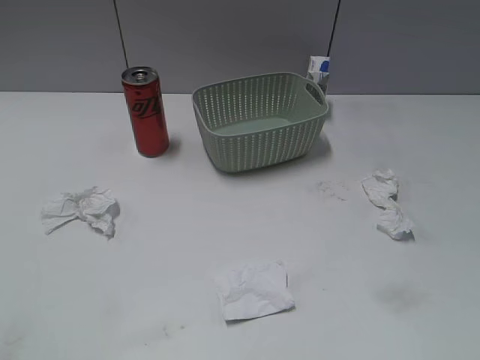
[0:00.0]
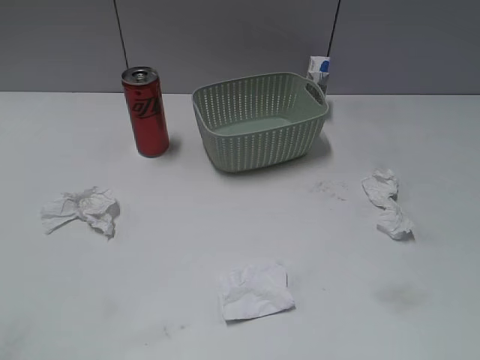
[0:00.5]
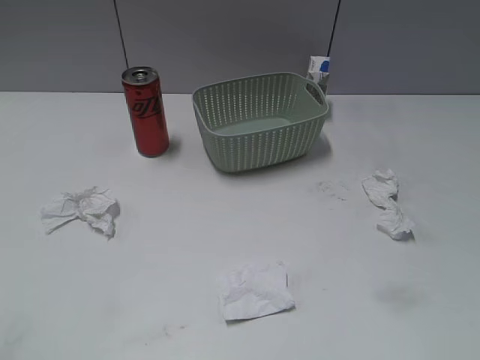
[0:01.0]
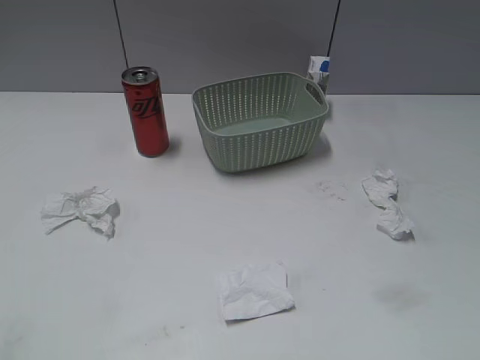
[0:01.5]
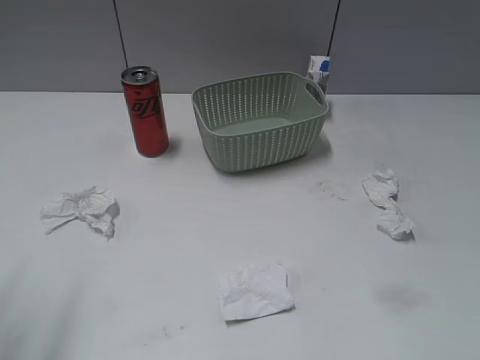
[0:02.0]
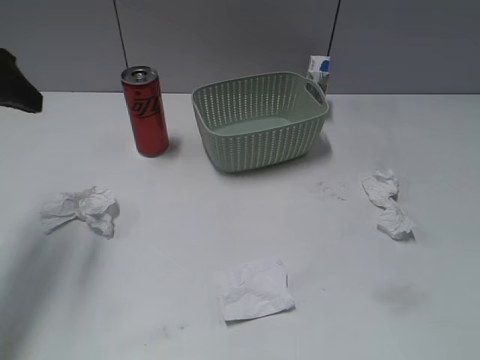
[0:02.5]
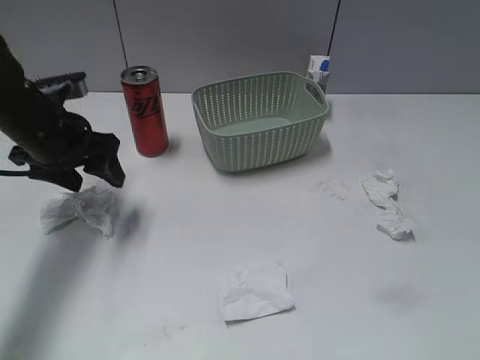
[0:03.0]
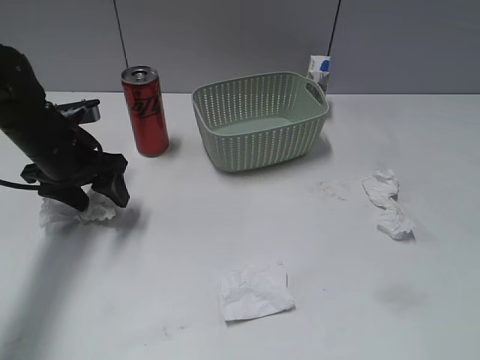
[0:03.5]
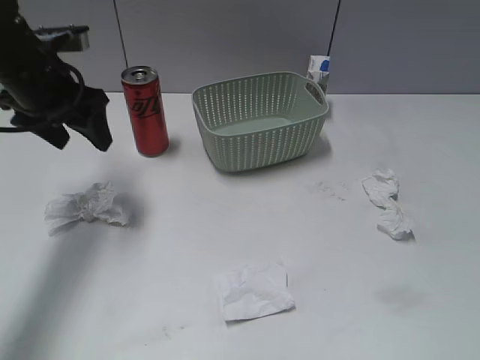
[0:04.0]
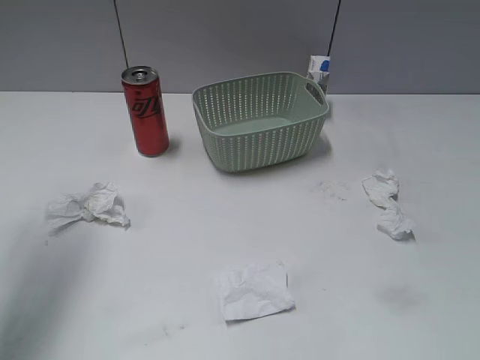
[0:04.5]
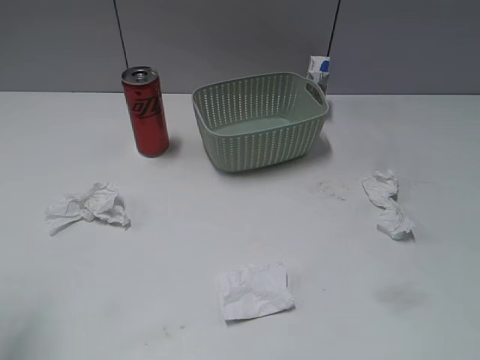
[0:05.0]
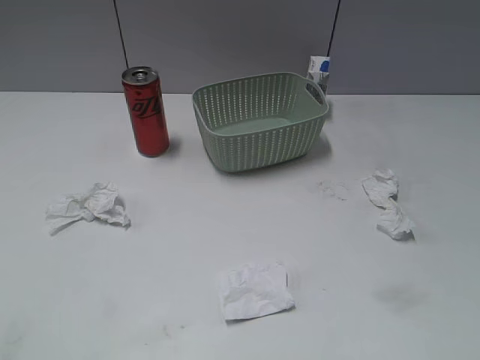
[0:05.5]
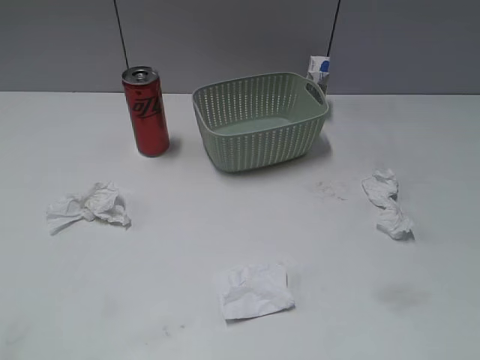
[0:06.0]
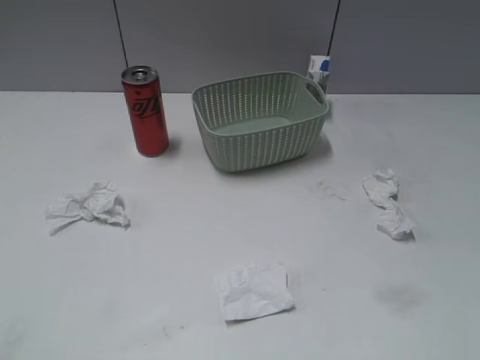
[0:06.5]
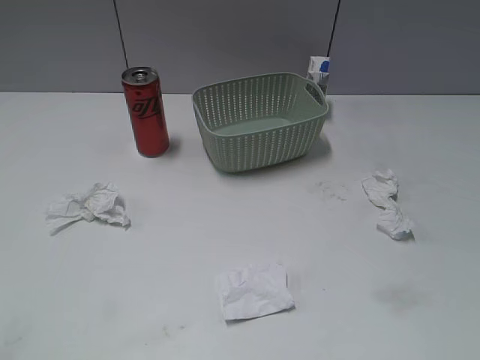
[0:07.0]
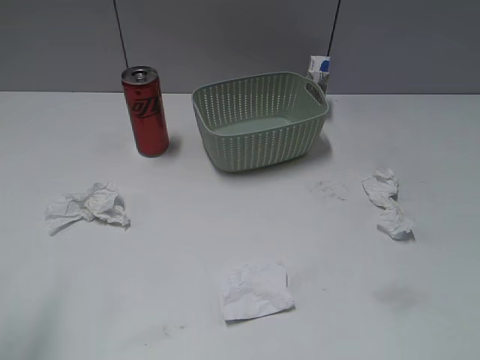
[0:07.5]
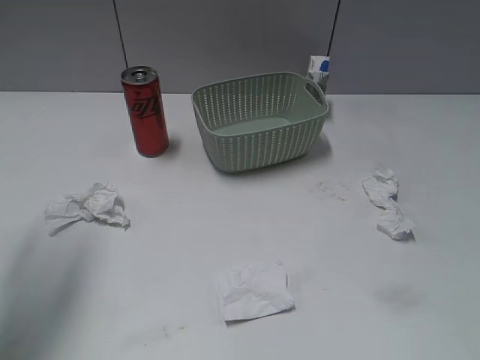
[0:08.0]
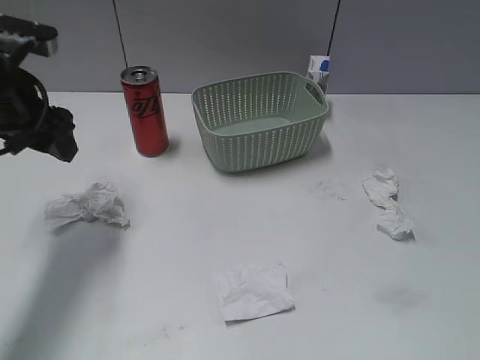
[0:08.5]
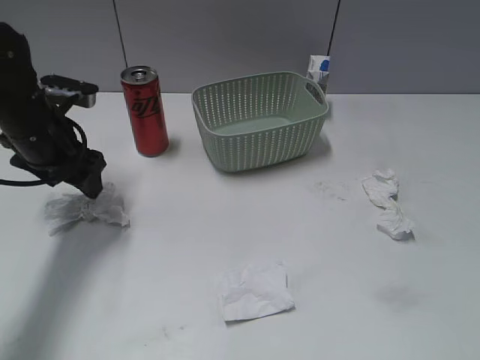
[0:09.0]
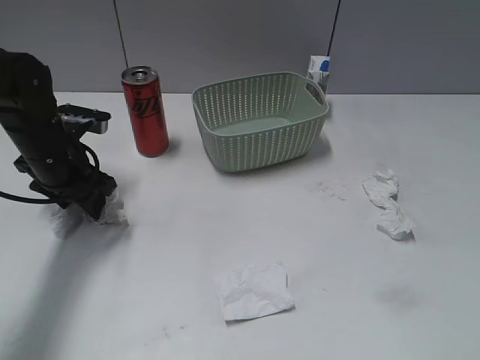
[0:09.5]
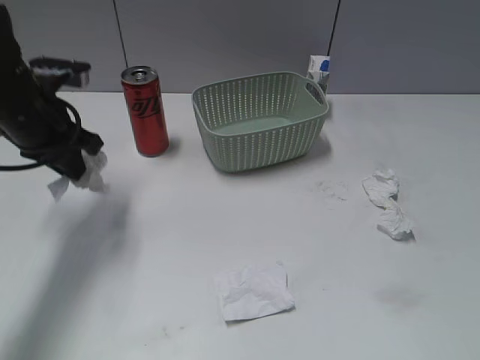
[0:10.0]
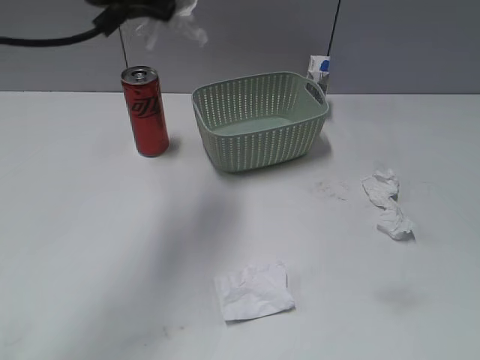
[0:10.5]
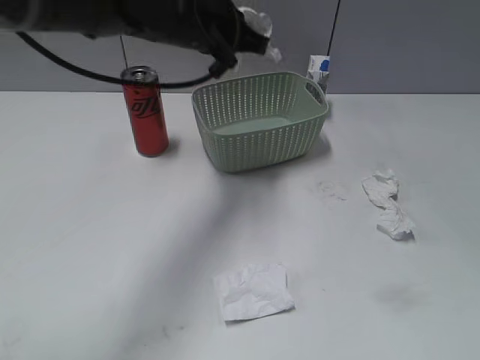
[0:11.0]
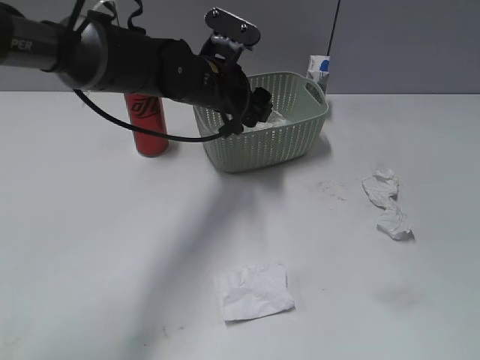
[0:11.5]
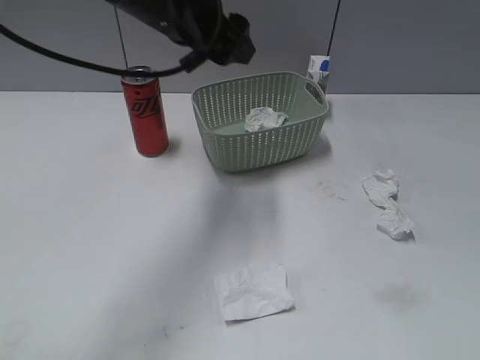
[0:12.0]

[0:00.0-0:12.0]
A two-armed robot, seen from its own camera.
Step, 0:02.5 to 0:09.5: Grasp the waste paper with left gripper.
Step, 0:10.0 to 0:11.5: Place the waste paper in the basket with left gripper.
0:02.0 to 0:04.0: The left gripper is displaced forward and downward by some 25 cm.
0:04.0 to 0:06.0: The left gripper moves backward, about 35 cm.
0:06.0 to 0:08.0: The left gripper is displaced forward by some 25 cm.
0:08.0 to 0:10.0: The left gripper moves downward, forward and to the right, about 15 cm, and closes.
0:10.0 to 0:12.0: The left gripper shifts approximately 20 cm to the right and upward, and opens up.

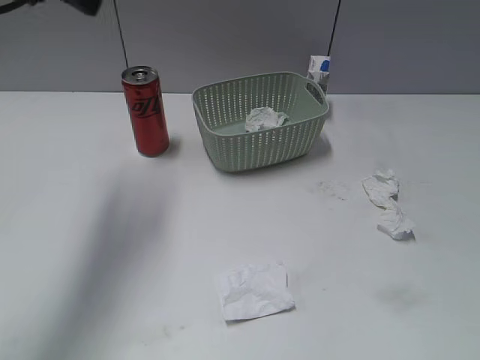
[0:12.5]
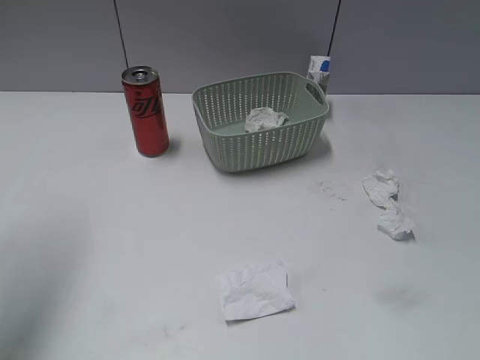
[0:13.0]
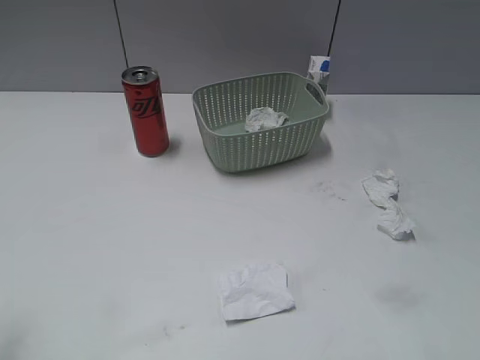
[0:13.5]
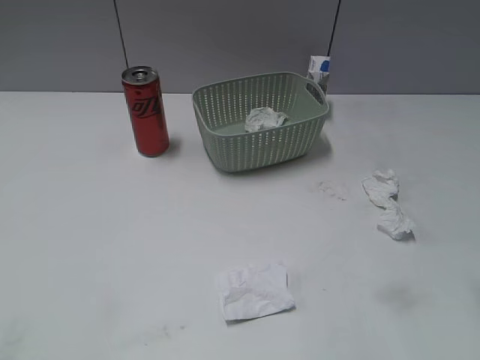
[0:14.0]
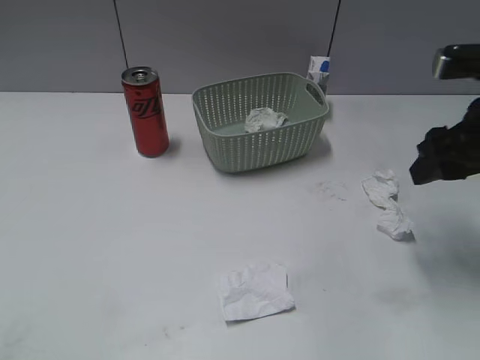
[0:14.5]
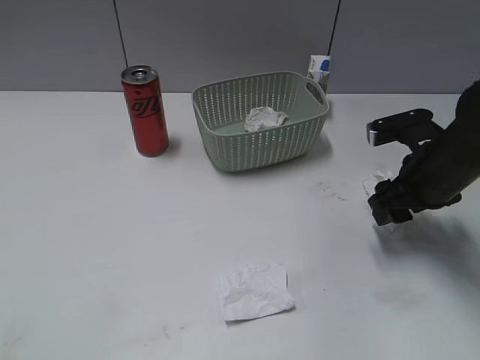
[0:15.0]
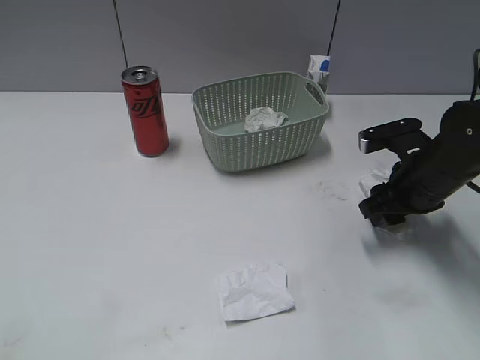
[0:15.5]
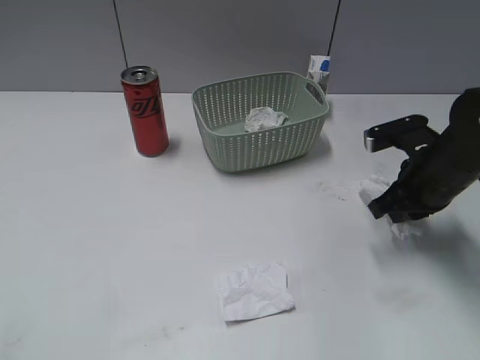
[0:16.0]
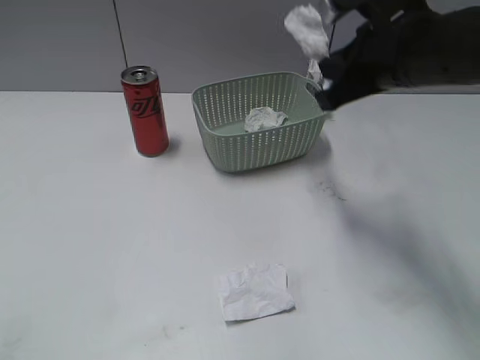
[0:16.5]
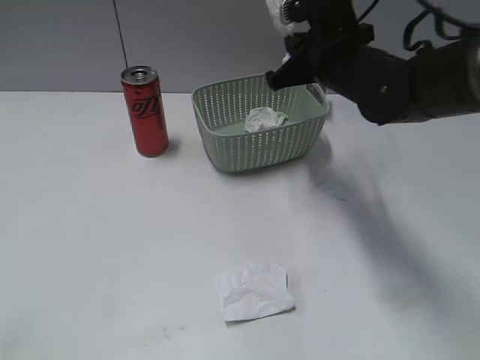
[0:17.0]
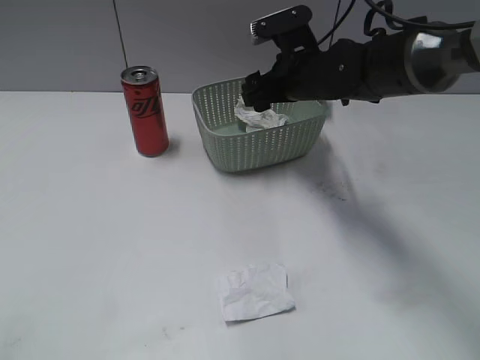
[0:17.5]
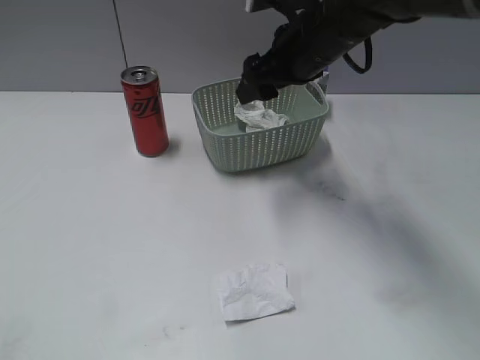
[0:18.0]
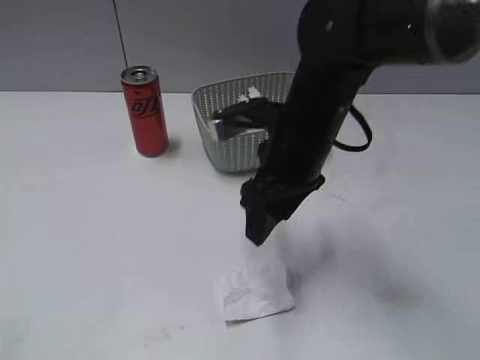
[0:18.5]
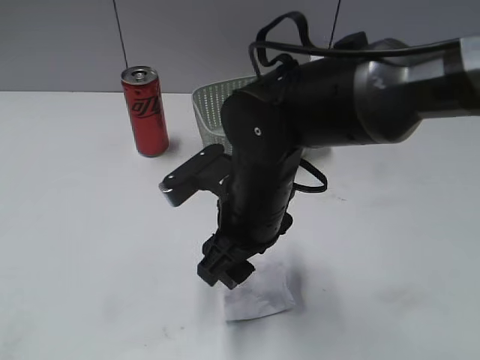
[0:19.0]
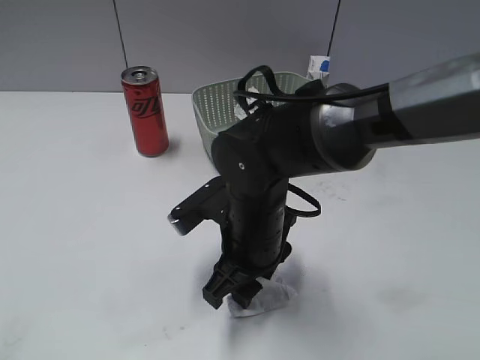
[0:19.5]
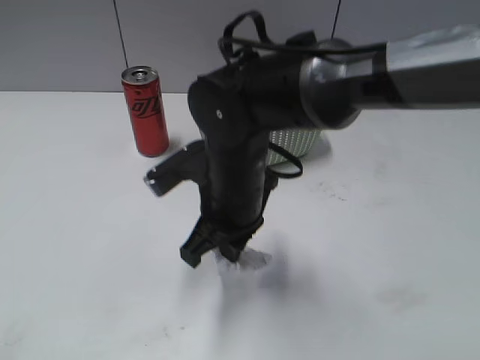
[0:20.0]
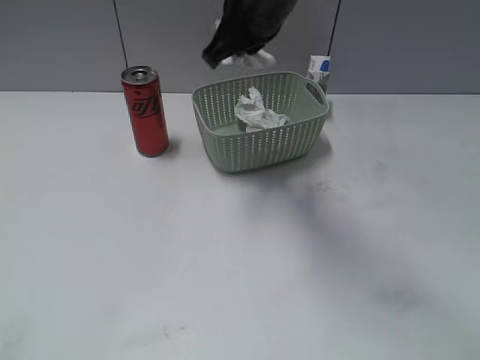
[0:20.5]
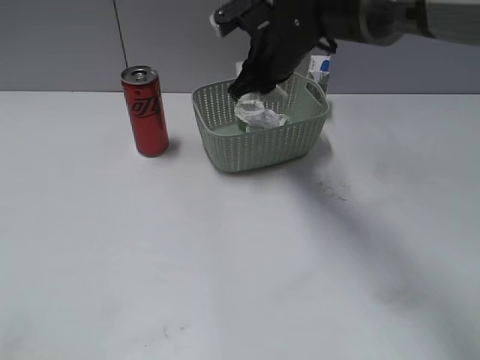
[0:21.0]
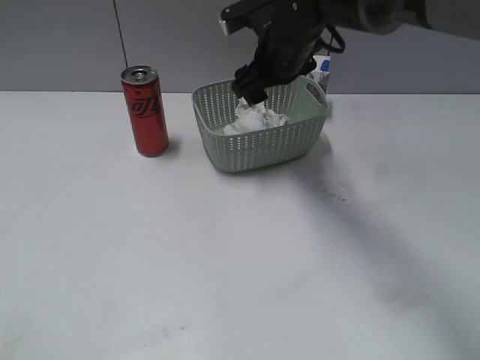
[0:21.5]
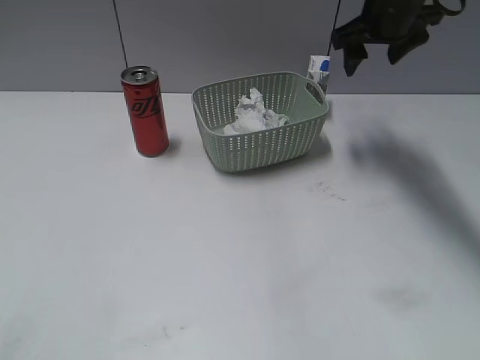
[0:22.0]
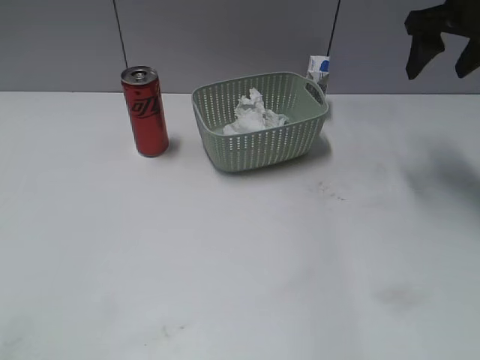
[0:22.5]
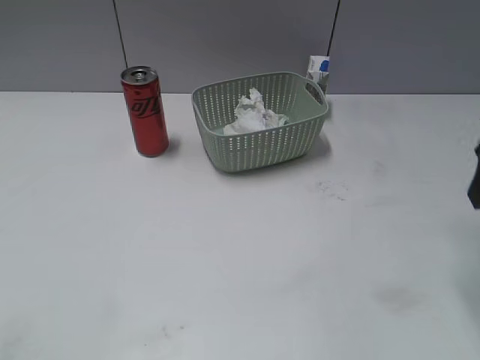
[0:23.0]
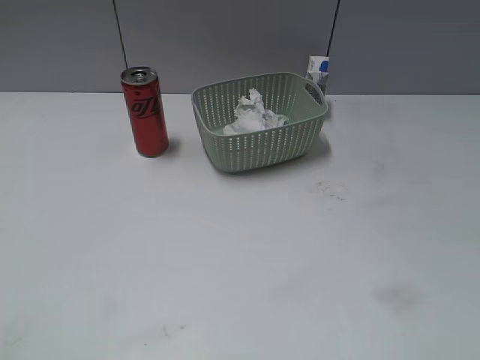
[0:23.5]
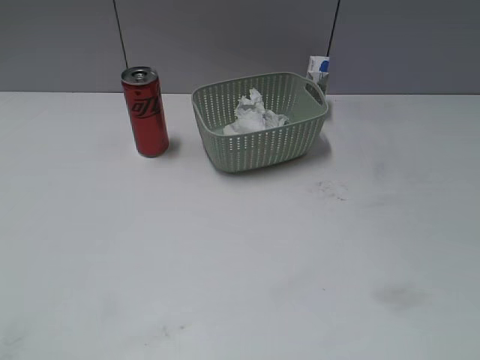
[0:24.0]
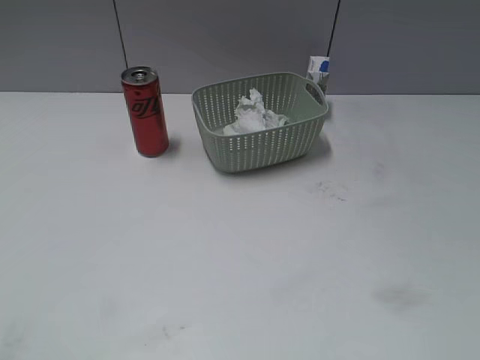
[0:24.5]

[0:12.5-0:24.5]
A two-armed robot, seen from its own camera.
Step, 0:12.5 to 0:16.0: Grasp the waste paper with right gripper.
Step, 0:16.5 to 0:17.5: Place the waste paper in the basket with right gripper.
Step, 0:18.0 to 0:19.5: Grasp the waste paper with right gripper.
Step, 0:20.0 to 0:21.0: Place the waste paper in the basket with right gripper.
0:12.5 to 0:14.5: The right gripper is displaced forward by approximately 25 cm. The left gripper goes about 35 cm backward.
0:14.5 to 0:16.5: The right gripper is displaced to the left by roughly 10 cm, reaches about 10 cm downward, then returns, and closes its fingers.
0:16.5 to 0:18.5: The right gripper shifts approximately 10 cm to the left and downward, goes forward and returns, roughly 10 cm each way, and opens its fingers.
0:18.5 to 0:20.5: The right gripper heads upward and forward, covering approximately 15 cm, and closes.
0:20.5 to 0:22.5: The right gripper goes roughly 25 cm to the right, and opens its fingers.
0:22.5 to 0:24.5: The right gripper shifts some 40 cm backward.

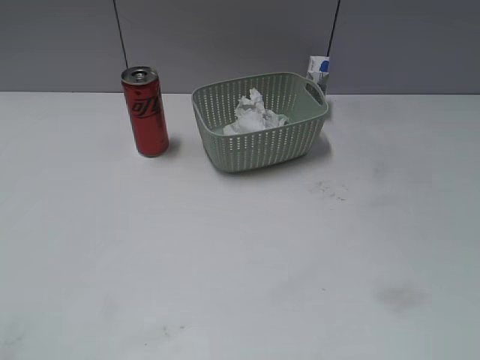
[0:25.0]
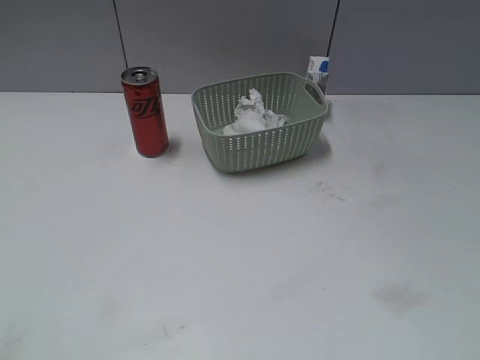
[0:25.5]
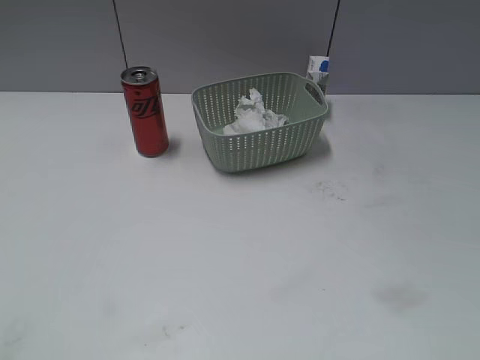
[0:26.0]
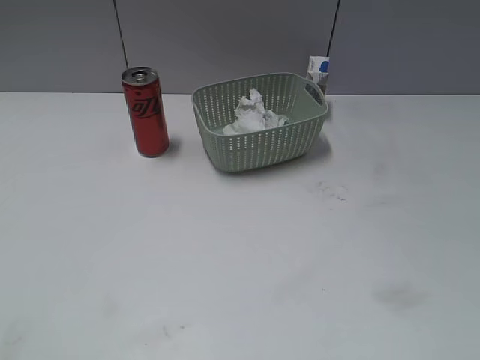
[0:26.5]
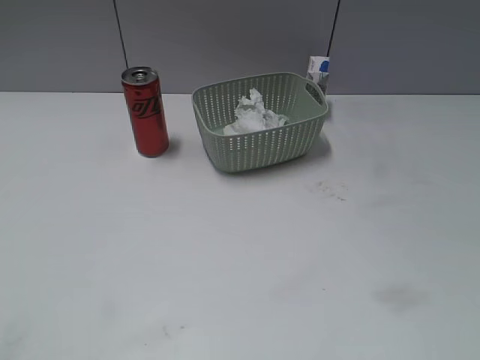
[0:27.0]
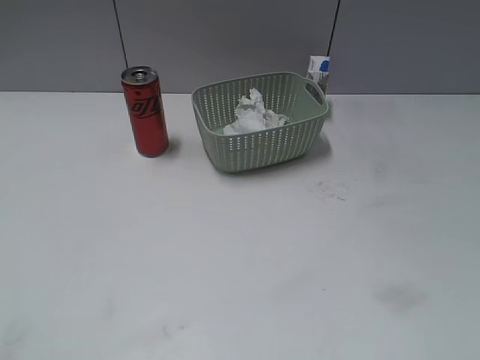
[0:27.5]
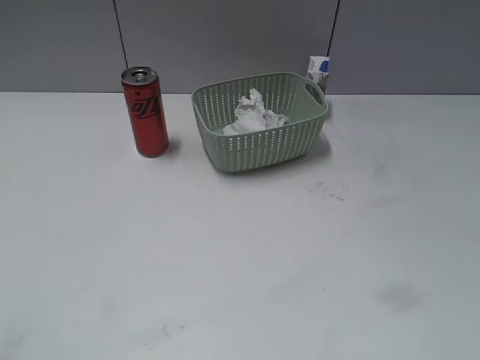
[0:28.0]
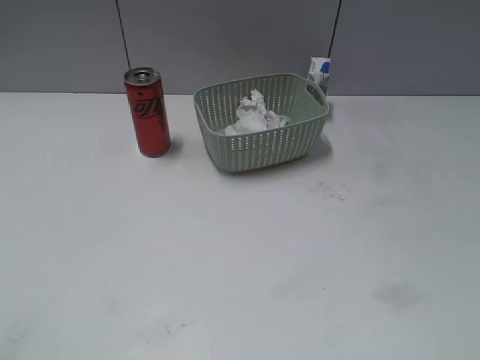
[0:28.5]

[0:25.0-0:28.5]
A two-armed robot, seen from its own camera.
0:25.0 to 0:28.5: Both grippers stay about where they are.
